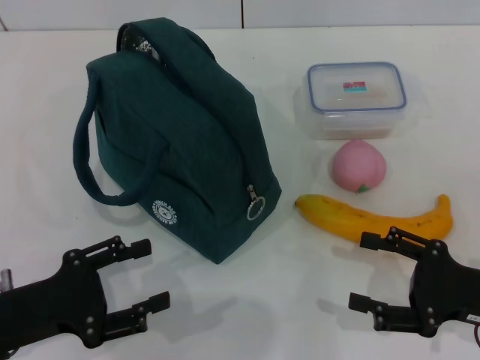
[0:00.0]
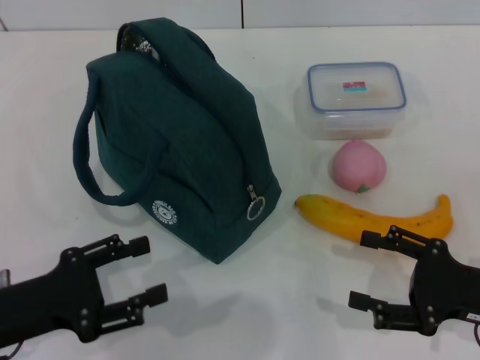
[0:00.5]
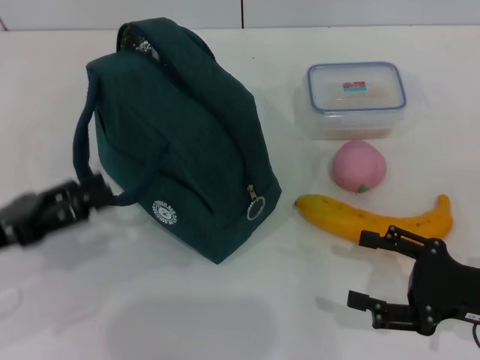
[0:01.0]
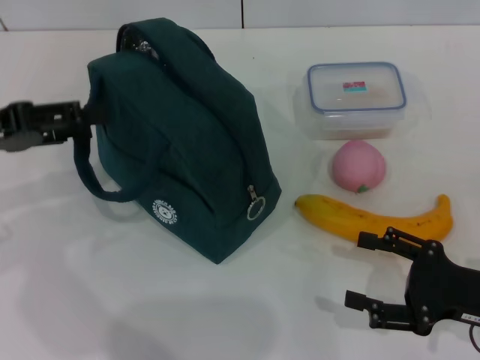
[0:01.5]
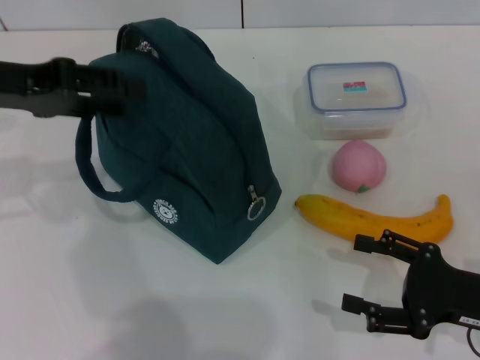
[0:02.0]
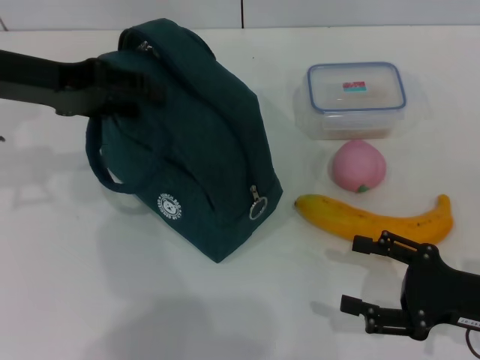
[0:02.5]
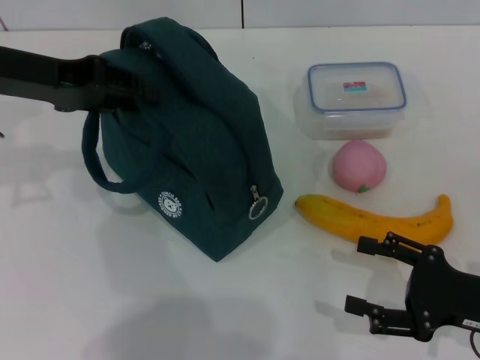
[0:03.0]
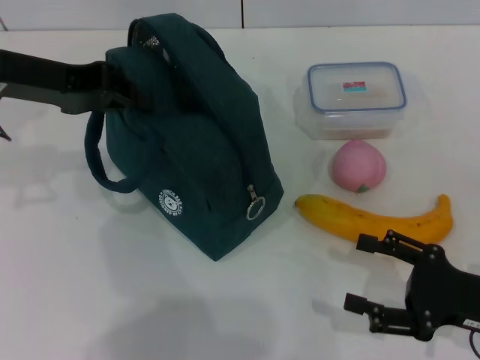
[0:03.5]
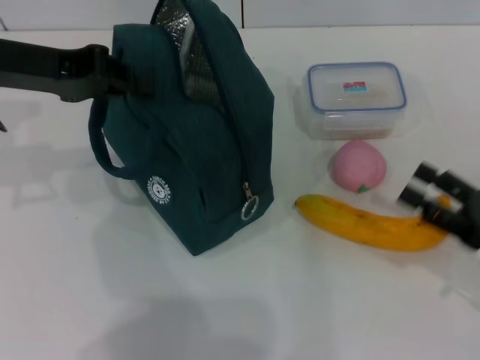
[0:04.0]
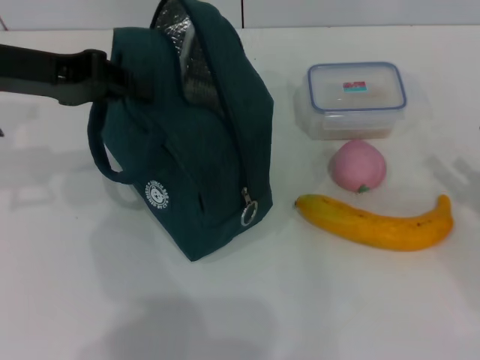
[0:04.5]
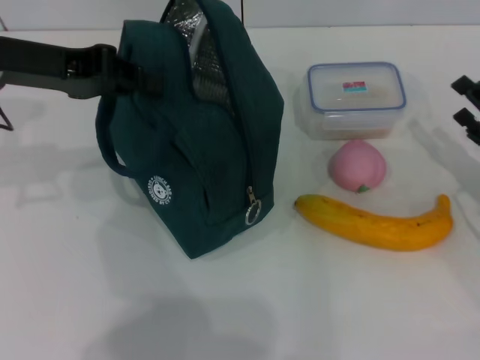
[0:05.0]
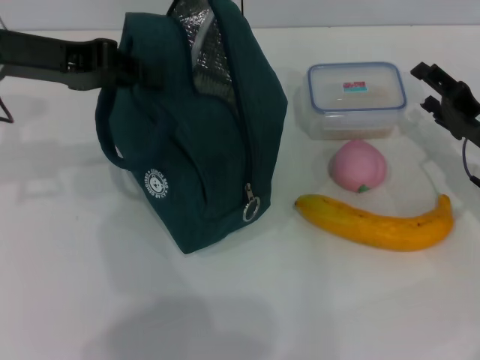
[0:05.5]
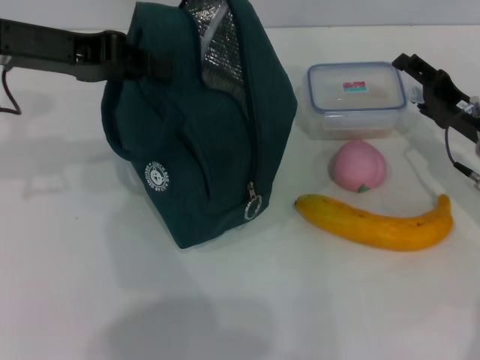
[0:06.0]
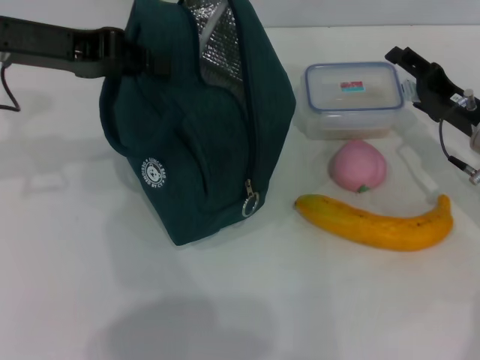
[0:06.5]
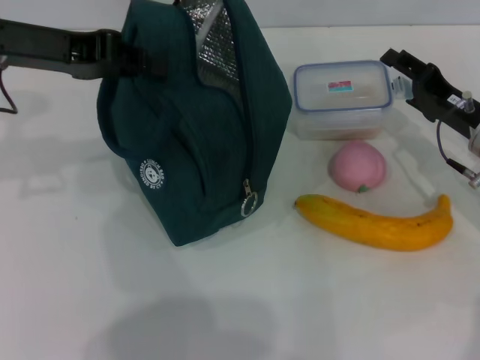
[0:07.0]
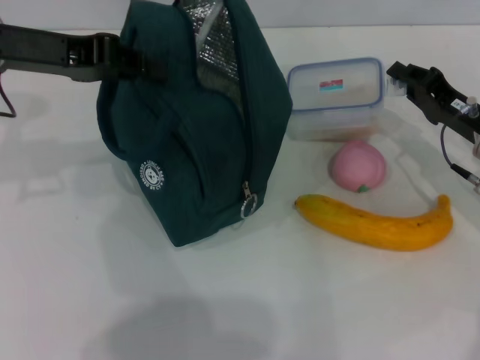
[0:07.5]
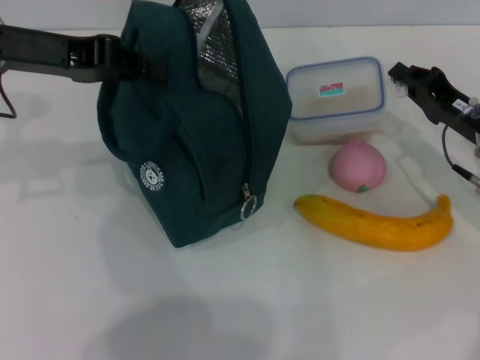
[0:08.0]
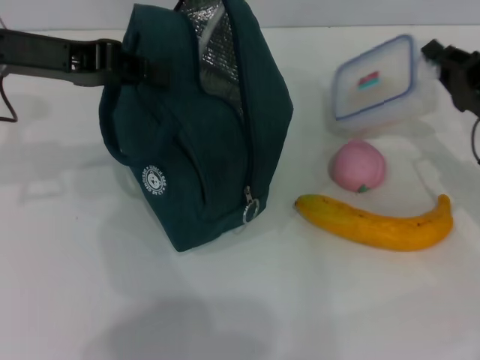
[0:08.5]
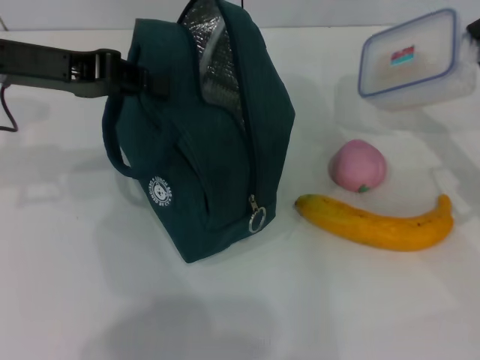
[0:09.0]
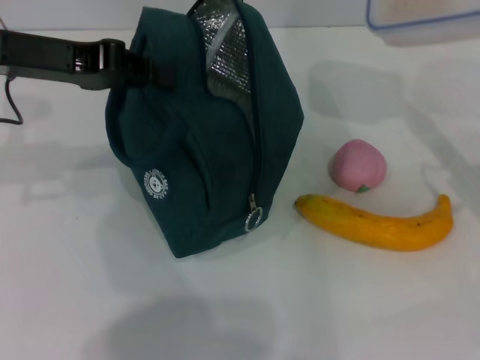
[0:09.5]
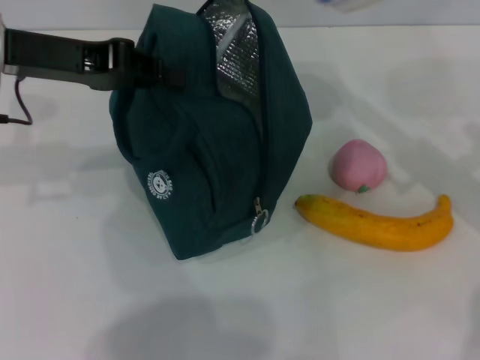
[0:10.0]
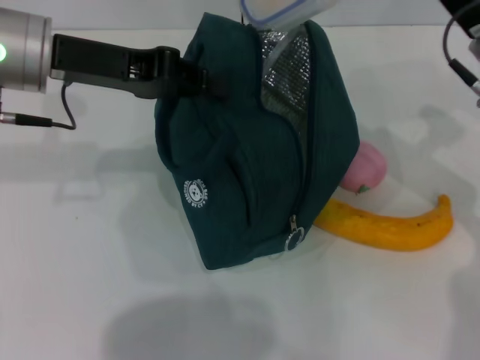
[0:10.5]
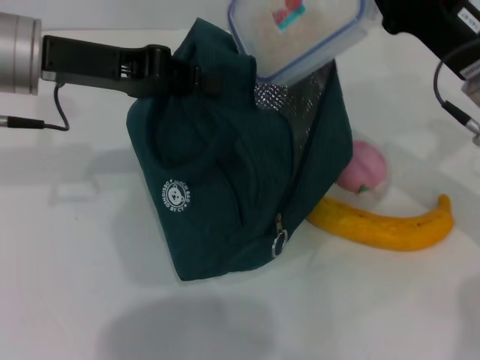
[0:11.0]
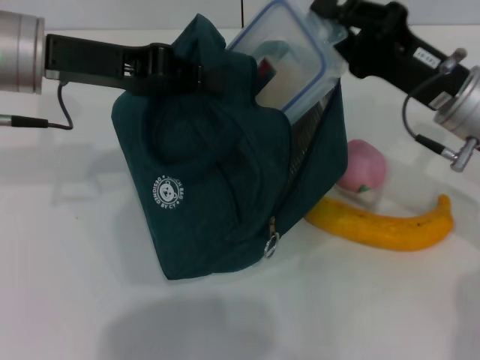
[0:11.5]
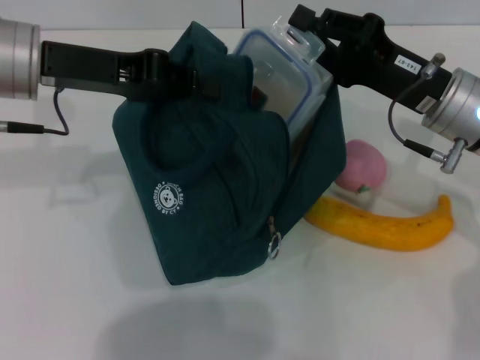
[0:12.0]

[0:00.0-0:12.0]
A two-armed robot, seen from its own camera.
Step, 0.0 to 3.5 s: Hold the lunch bag with your left hand.
Step, 4.0 to 7.5 s: Pick up the lunch box with your right hand.
0.0 to 2.0 s: The left gripper moves upward and forward, some 20 cm.
2.0 to 4.0 s: The left gripper closes.
4.0 to 6.0 s: The right gripper heads forward, covering roughly 15 cm.
6.0 to 8.0 s: The right gripper closes.
8.0 to 10.0 s: The right gripper goes approximately 10 cm upward.
10.0 to 12.0 s: The right gripper moves to the left, about 5 cm.

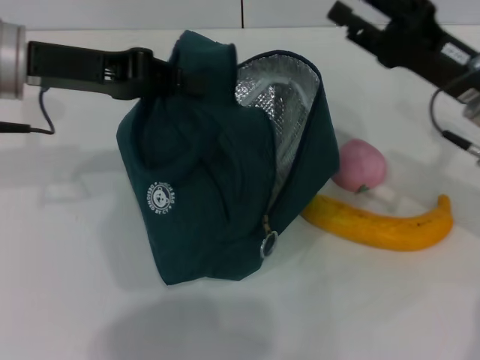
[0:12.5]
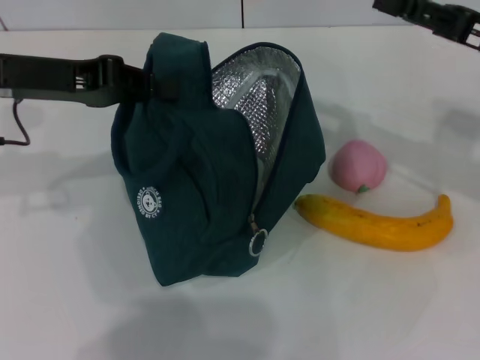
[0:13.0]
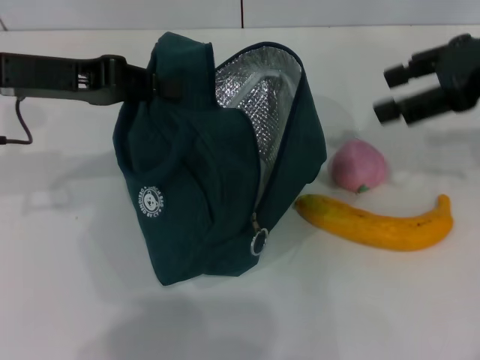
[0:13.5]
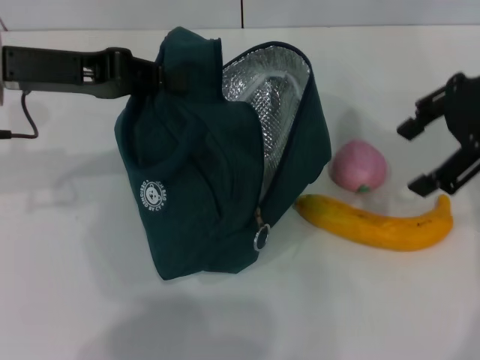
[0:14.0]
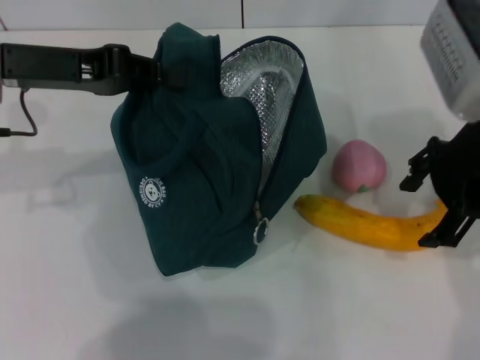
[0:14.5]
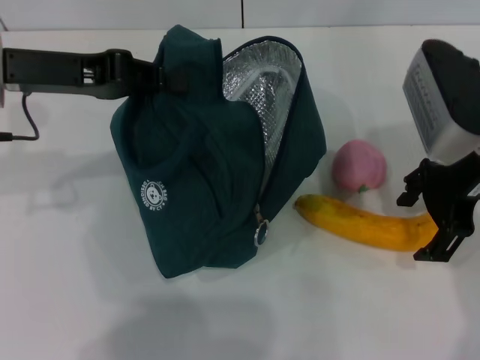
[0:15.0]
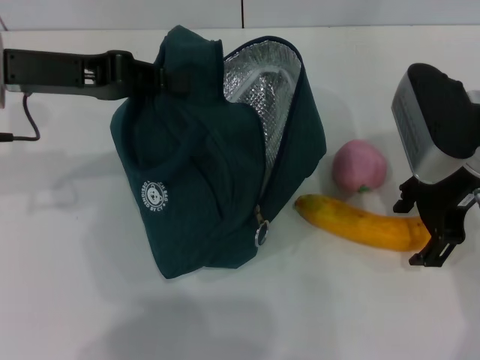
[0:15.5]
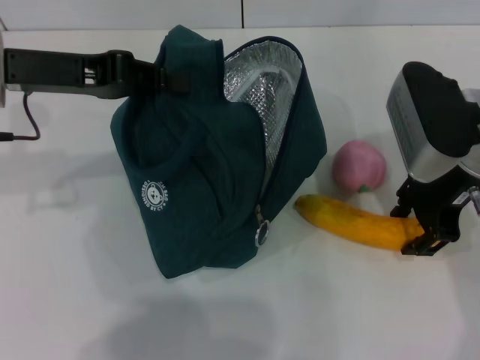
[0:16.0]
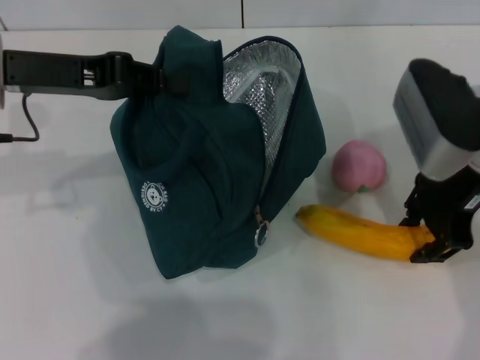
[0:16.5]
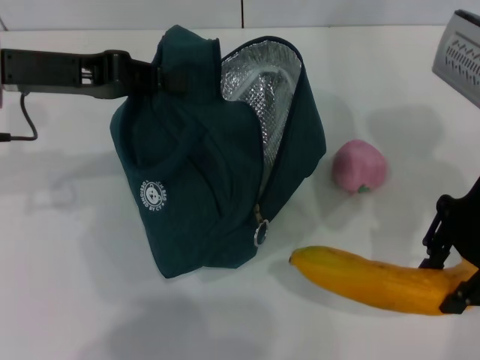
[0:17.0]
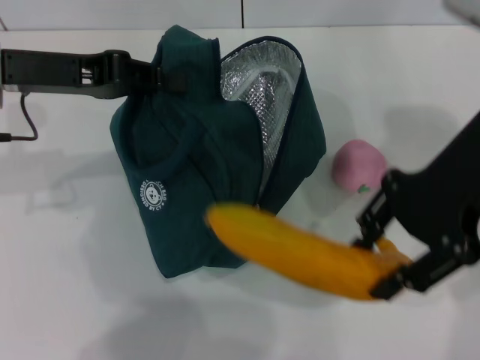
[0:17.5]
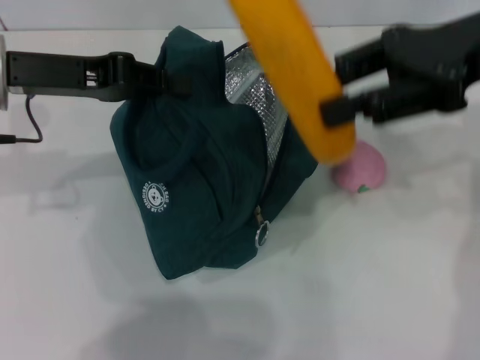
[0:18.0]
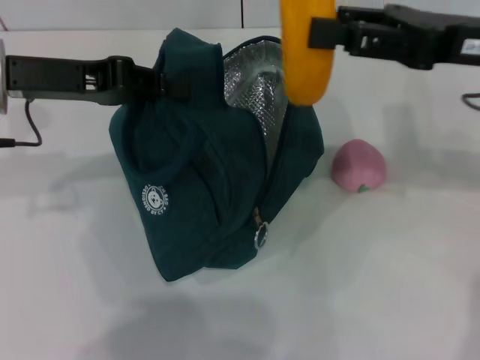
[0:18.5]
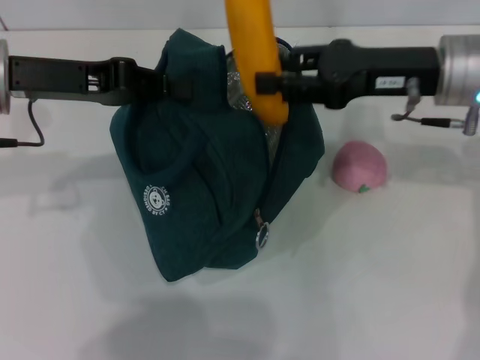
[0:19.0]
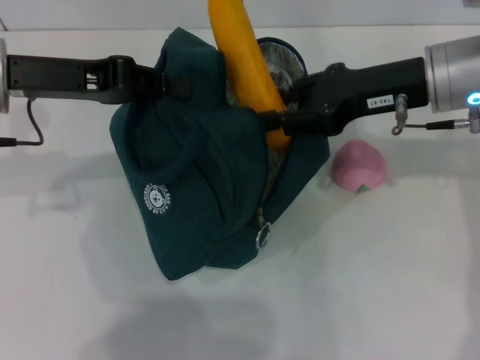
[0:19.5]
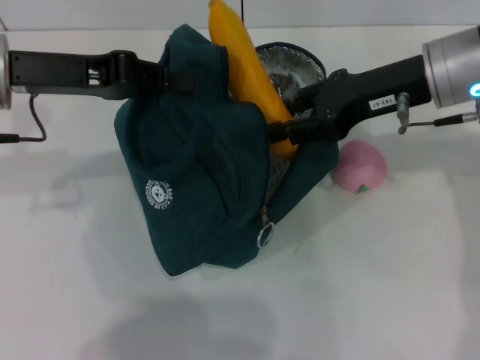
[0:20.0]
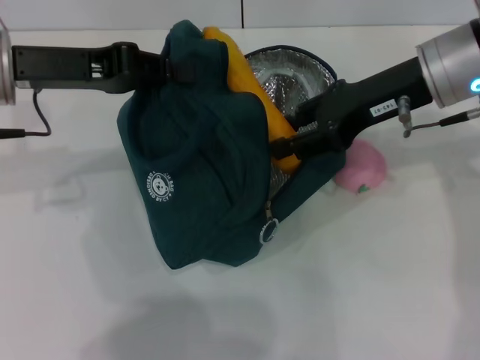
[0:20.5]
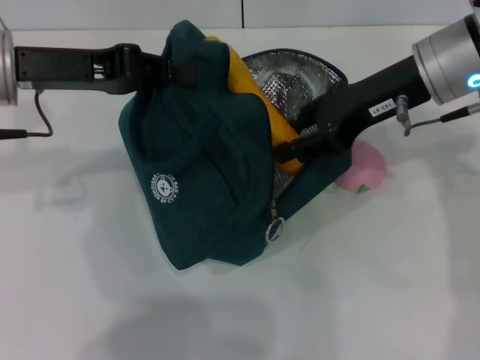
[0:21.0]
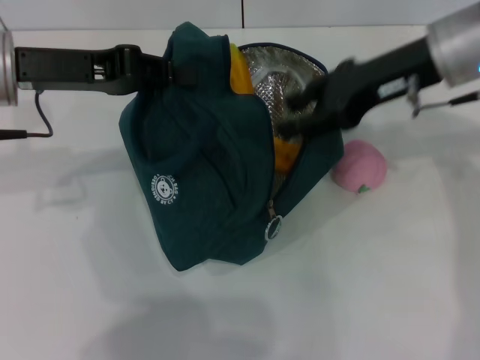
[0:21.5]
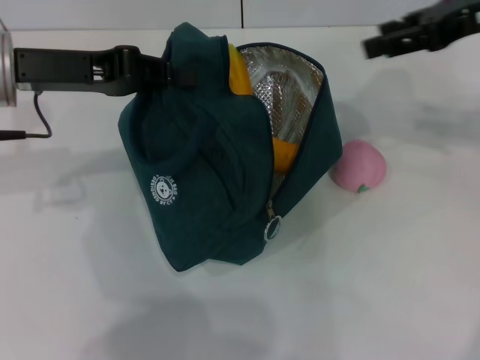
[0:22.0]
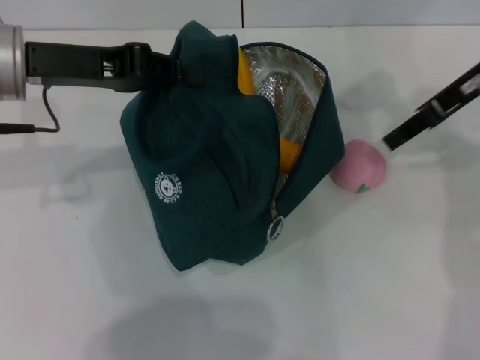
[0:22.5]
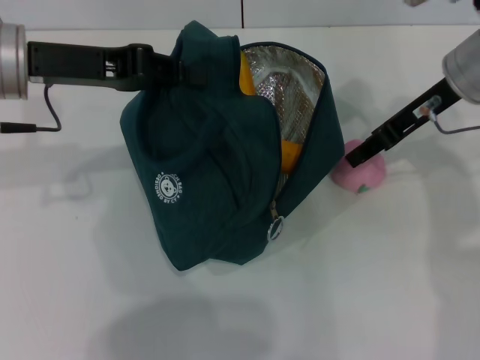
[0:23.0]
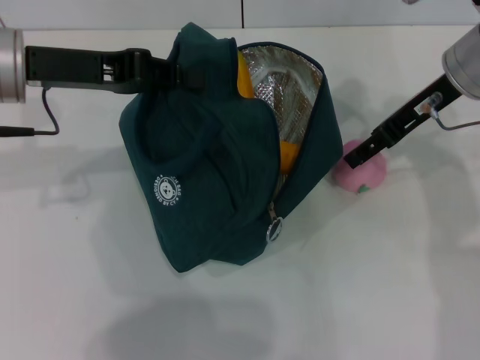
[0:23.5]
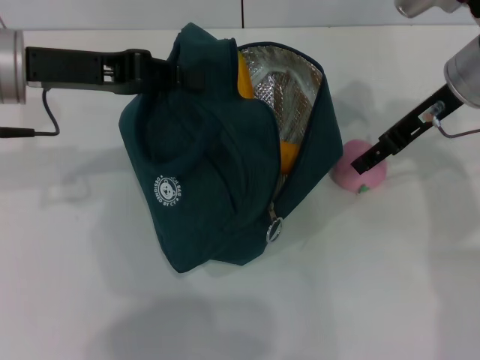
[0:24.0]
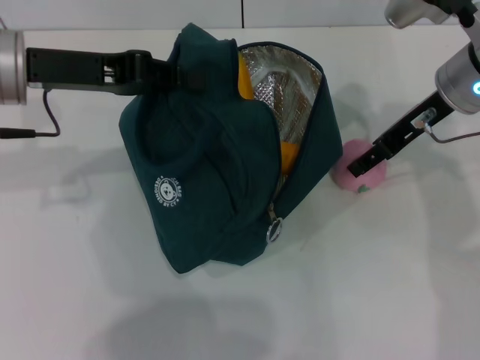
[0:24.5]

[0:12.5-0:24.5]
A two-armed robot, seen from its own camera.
Step, 12.5 to 16.0 s: Take the banana with your right hand.
Step, 16.5 to 21.0 s: Put the banana into the lunch bag with your right hand.
12.5 to 14.5 s: The right gripper heads upward, covering some 10 cm, and opens.
14.5 to 16.5 s: The right gripper closes.
18.5 to 20.5 s: The right gripper travels to the left by approximately 5 cm.
20.5 to 22.5 s: The right gripper moves to the right, about 5 cm.
22.5 to 24.5 s: The right gripper shifts by about 5 cm.

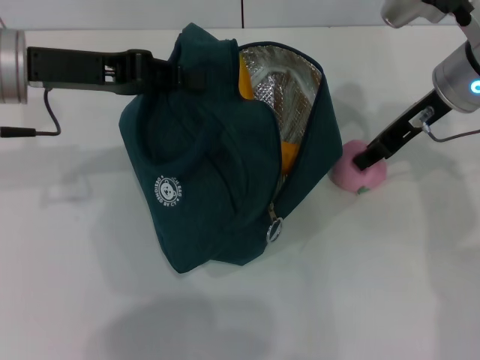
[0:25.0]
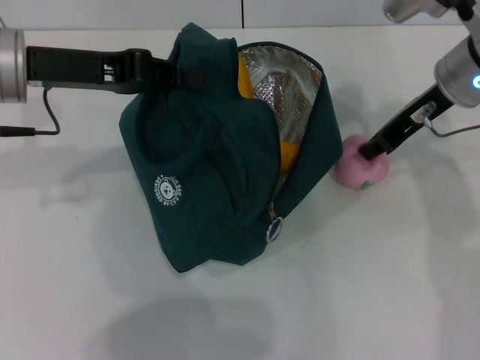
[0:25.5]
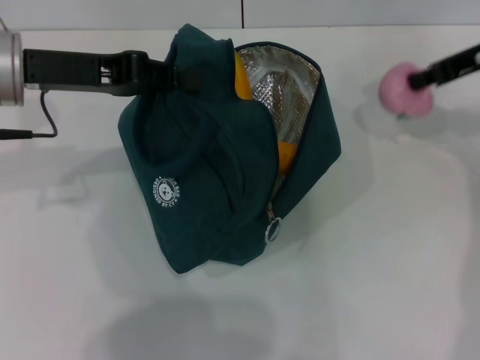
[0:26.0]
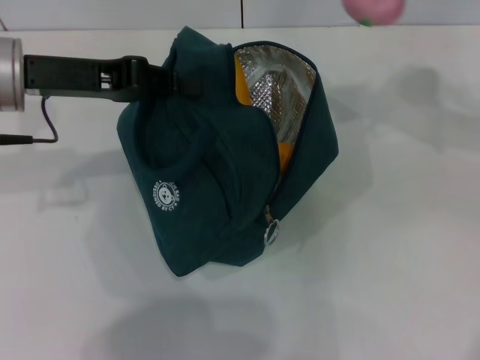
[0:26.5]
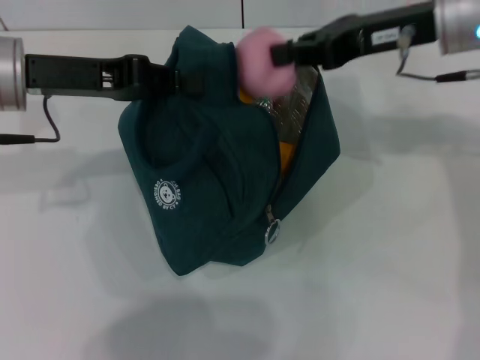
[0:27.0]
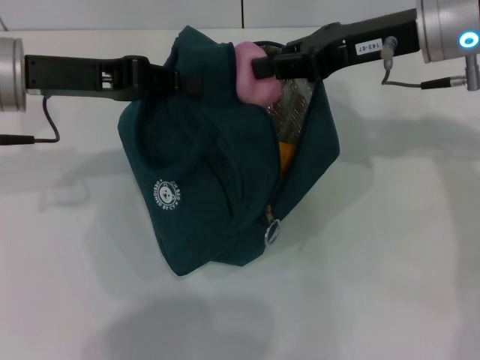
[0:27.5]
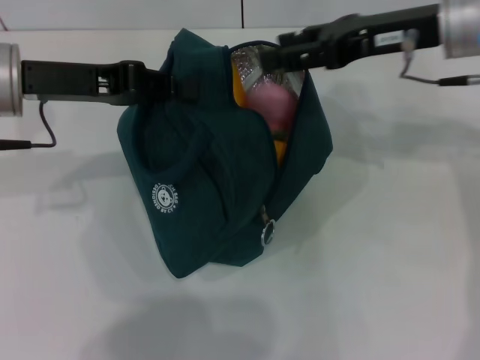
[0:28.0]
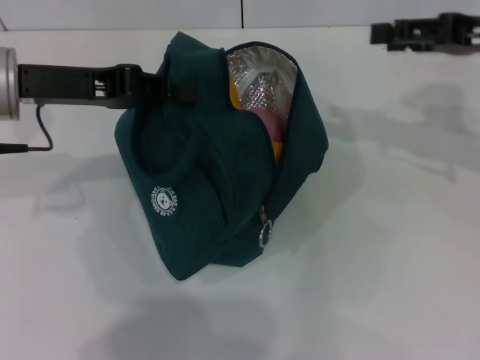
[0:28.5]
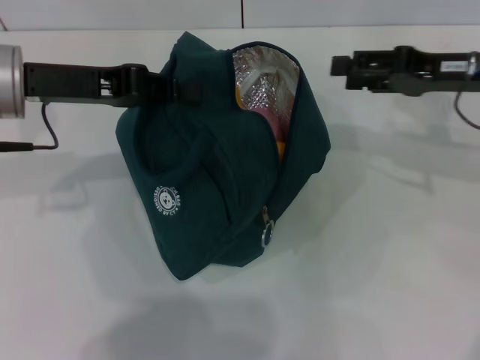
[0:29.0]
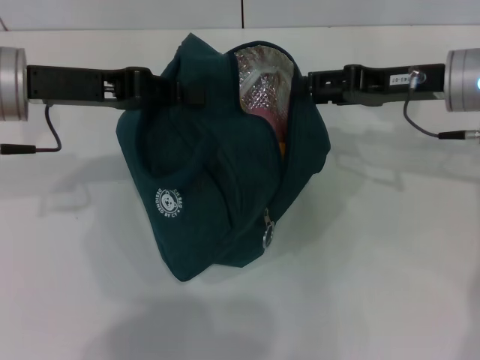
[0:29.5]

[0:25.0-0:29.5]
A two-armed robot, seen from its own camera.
25.0 to 27.0 s: The right gripper is displaced upward by approximately 5 cm, and closes up.
27.0 to 29.5 s: The right gripper heads downward, covering roughly 10 cm, travels to the right and back again, some 10 cm each way, and opens.
